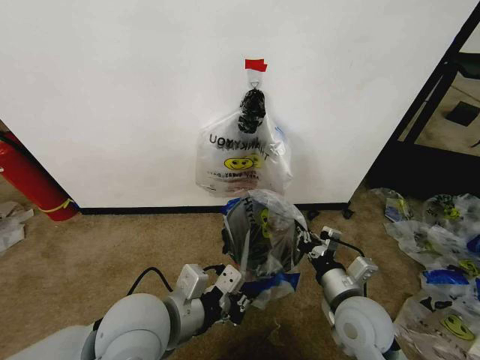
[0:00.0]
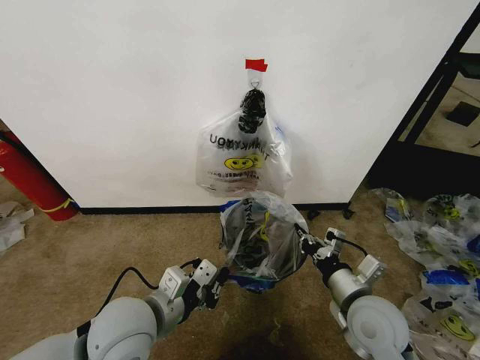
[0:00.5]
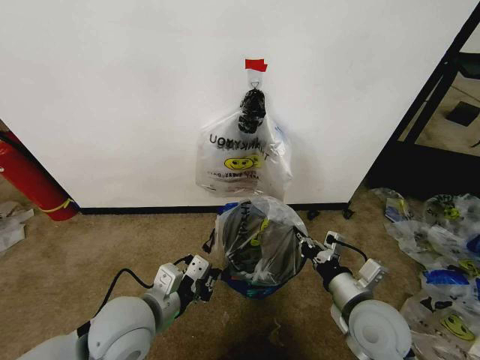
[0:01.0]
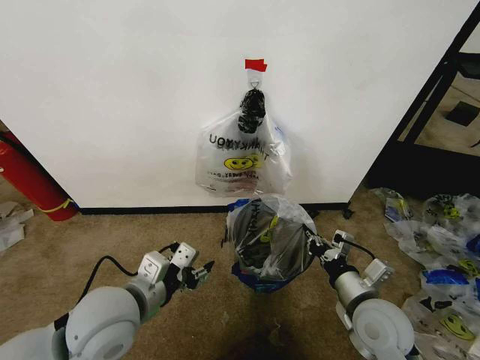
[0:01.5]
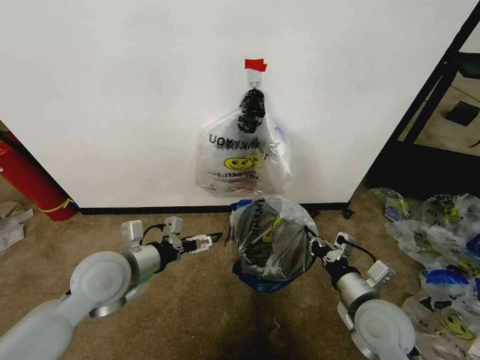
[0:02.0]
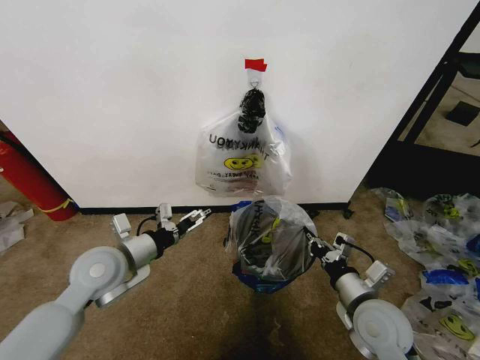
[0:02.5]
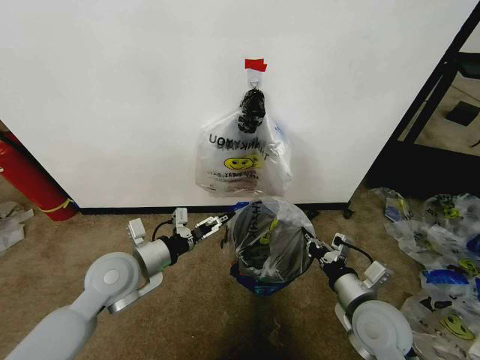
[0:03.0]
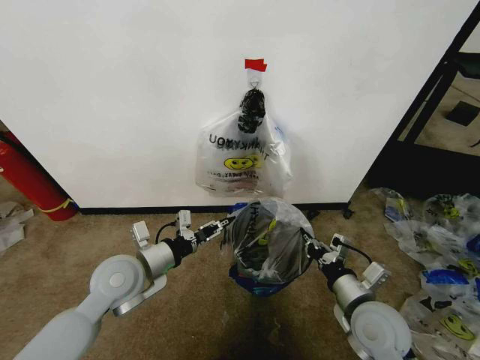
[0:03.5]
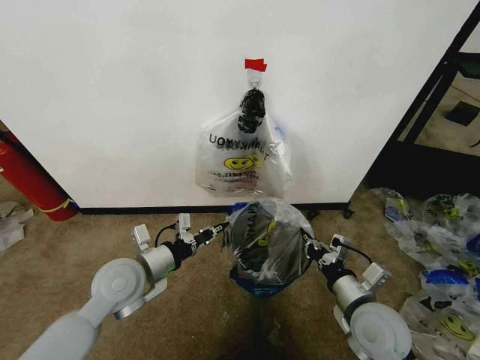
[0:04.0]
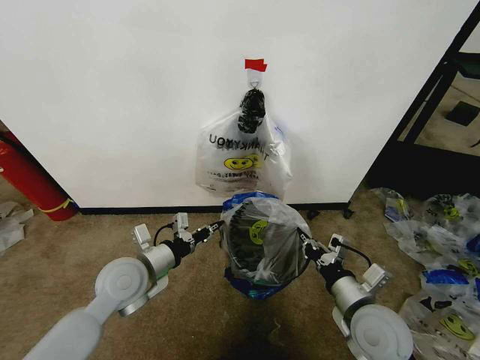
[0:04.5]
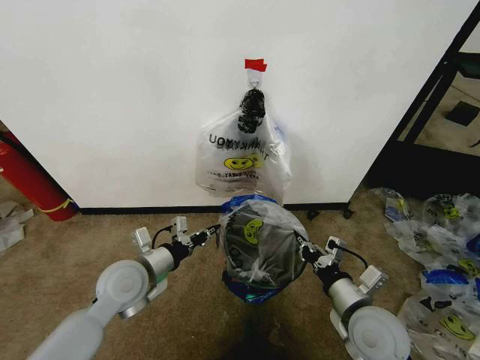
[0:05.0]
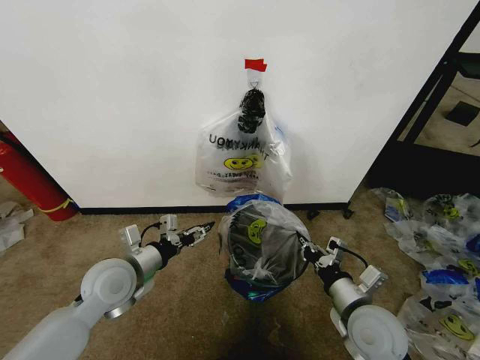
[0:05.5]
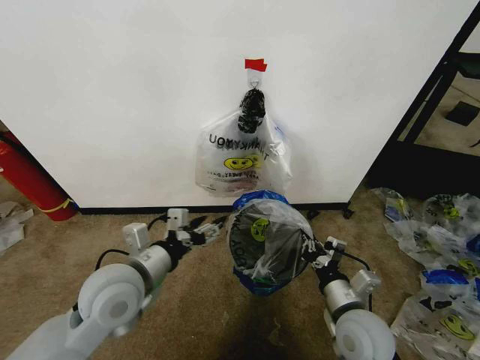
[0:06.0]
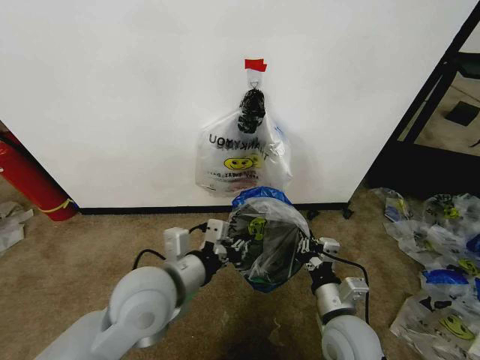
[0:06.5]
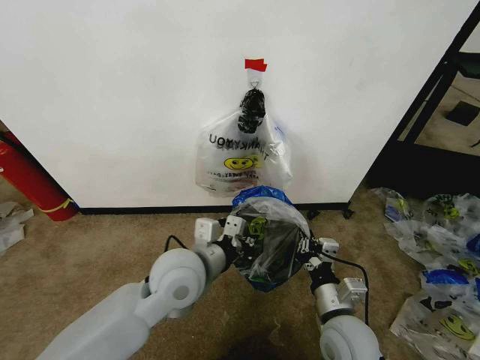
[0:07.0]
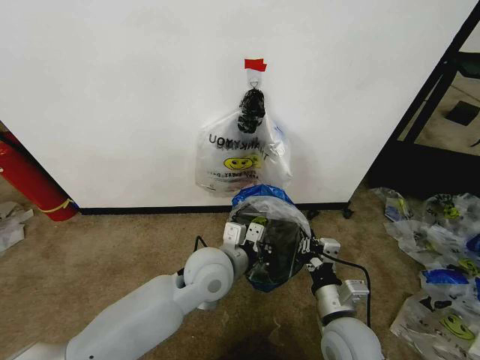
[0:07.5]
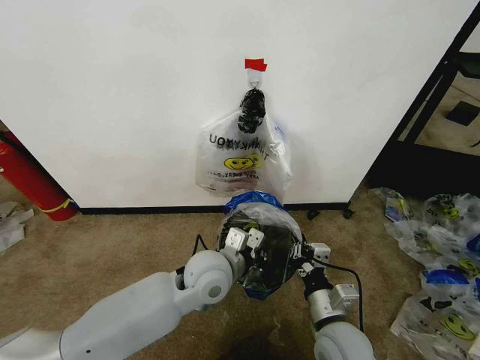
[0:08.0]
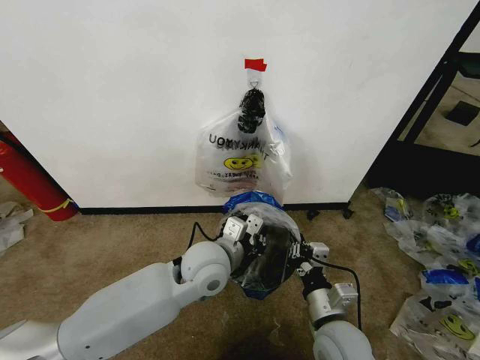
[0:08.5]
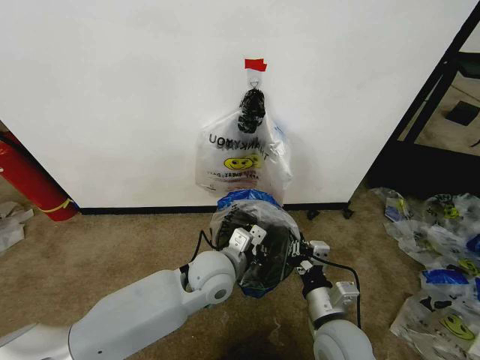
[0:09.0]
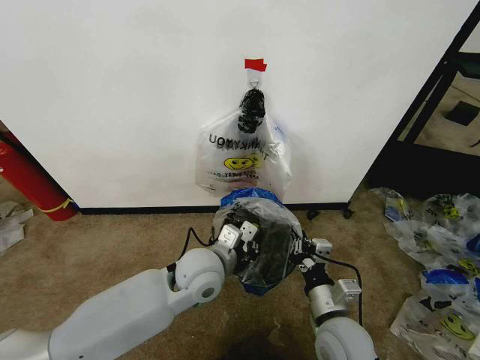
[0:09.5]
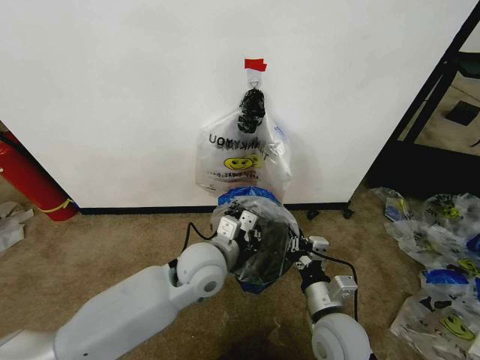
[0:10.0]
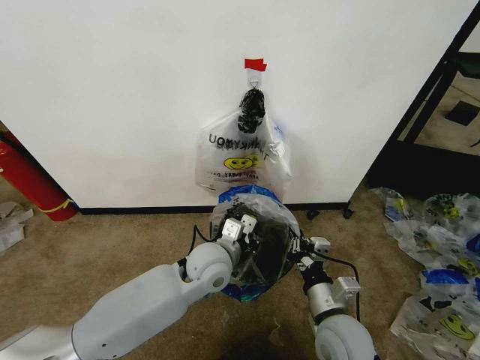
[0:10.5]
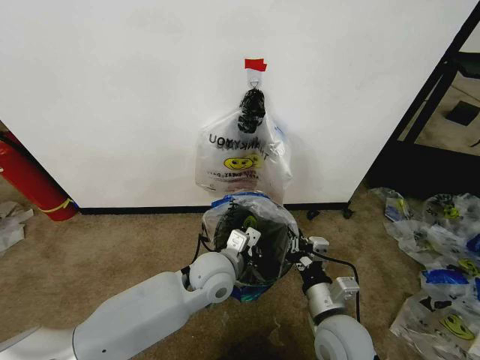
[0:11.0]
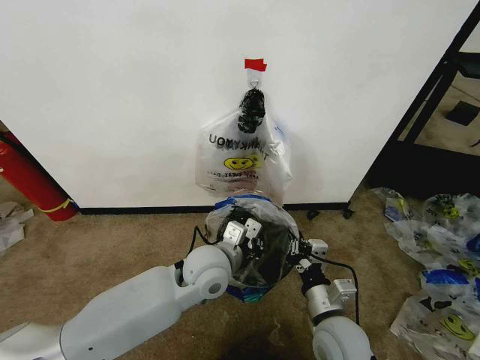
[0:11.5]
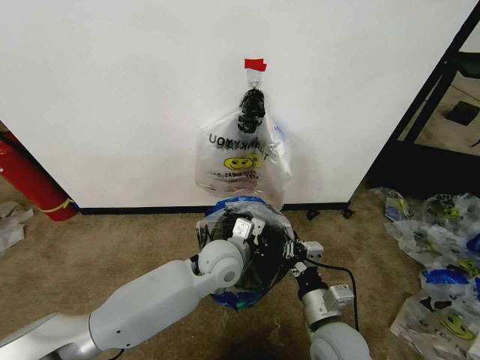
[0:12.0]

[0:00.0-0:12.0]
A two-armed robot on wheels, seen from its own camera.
Task of the whole recording: Pick up the garbage bag from the wall and place it over the trash bin.
0:00.0 to 0:02.0: The left gripper moves to the left and forward, some 15 cm, and opens up.
0:02.0 to 0:04.0: The left gripper closes.
0:04.0 to 0:06.0: The left gripper ends up some 5 cm from where it was, and opens its fingers.
0:06.0 to 0:08.0: The left gripper shifts approximately 15 cm to the right, and closes up.
0:08.0 to 0:10.0: The grippers make only small movements.
0:10.0 to 0:12.0: The left gripper moves about 5 cm.

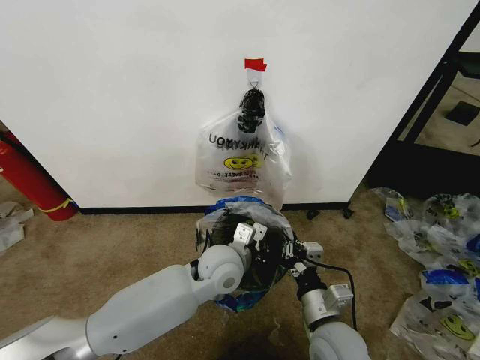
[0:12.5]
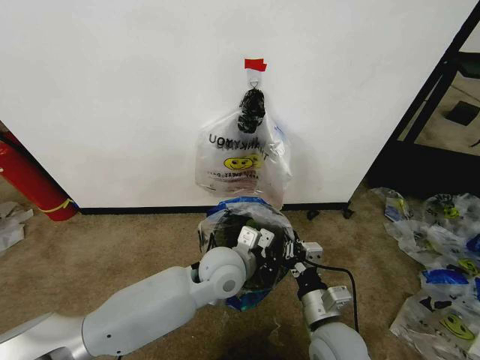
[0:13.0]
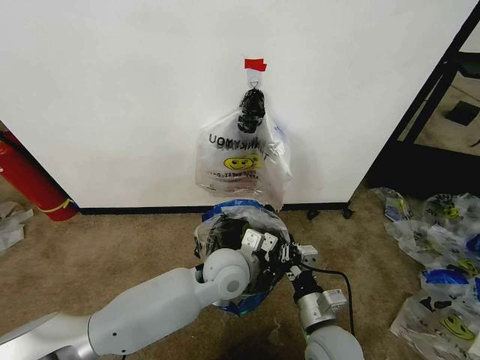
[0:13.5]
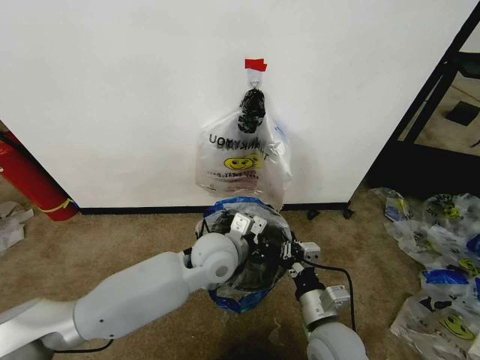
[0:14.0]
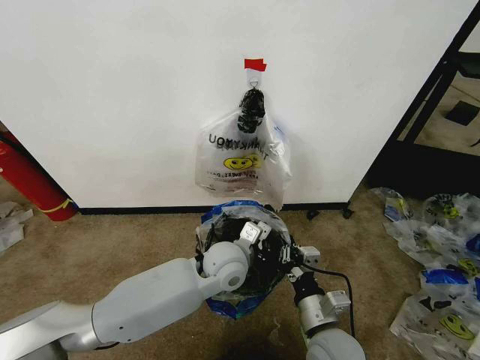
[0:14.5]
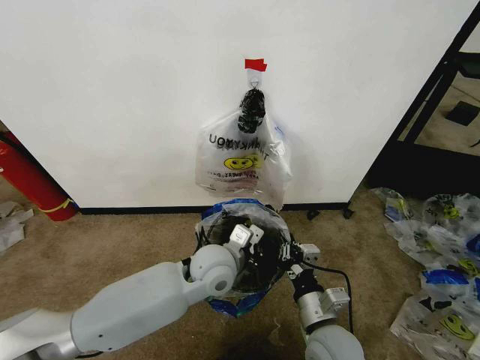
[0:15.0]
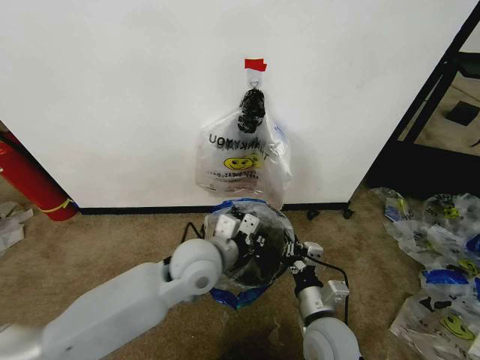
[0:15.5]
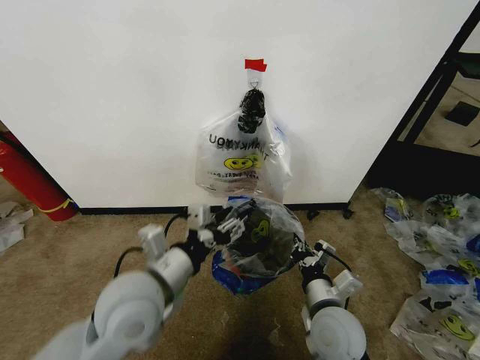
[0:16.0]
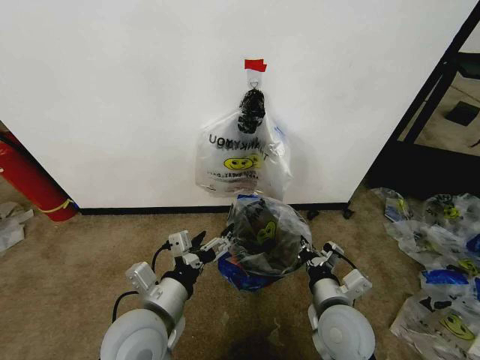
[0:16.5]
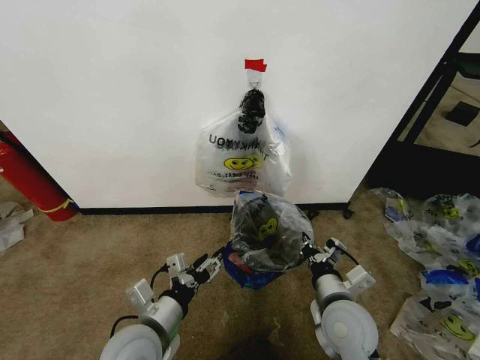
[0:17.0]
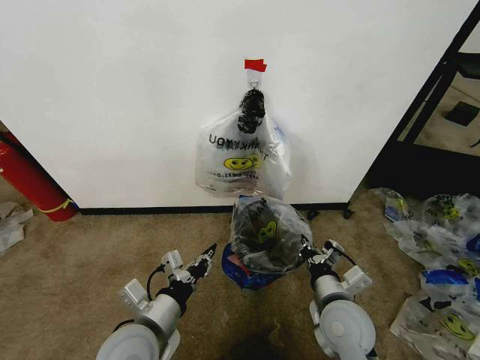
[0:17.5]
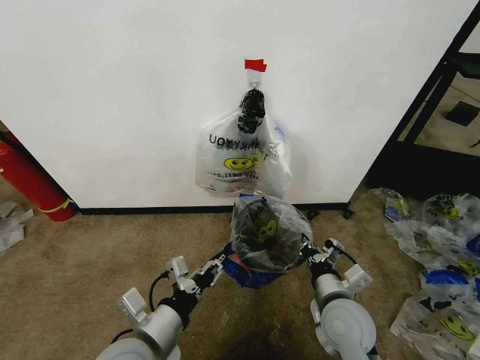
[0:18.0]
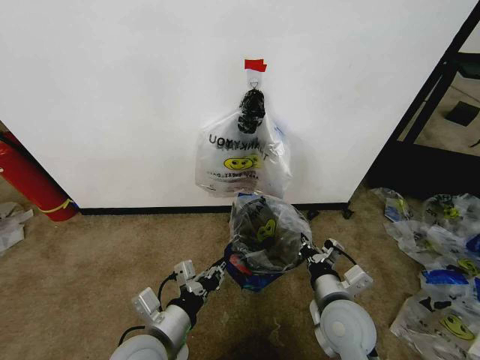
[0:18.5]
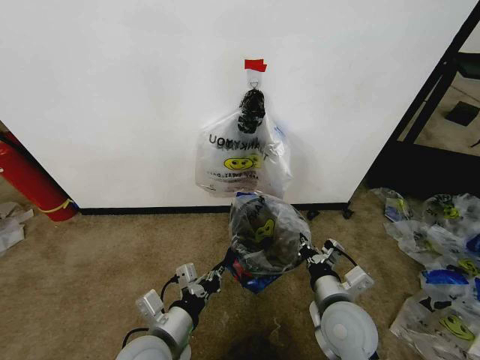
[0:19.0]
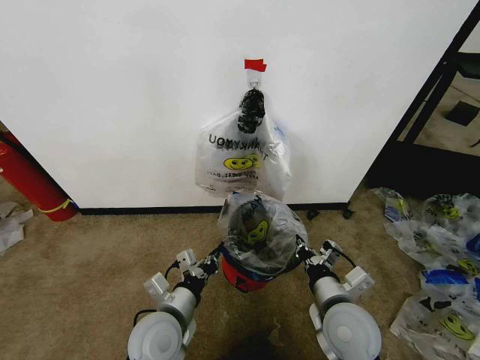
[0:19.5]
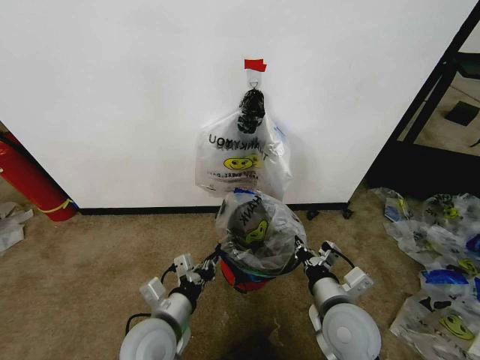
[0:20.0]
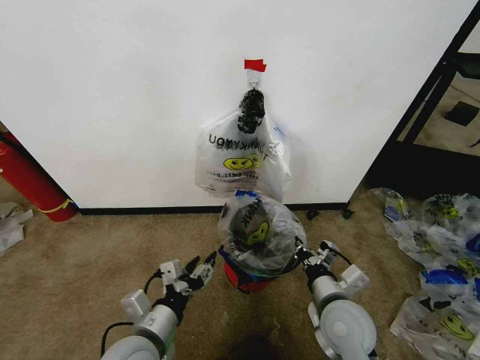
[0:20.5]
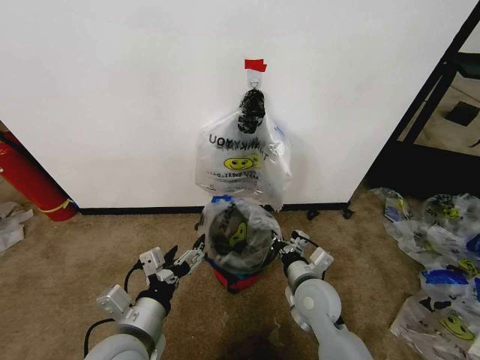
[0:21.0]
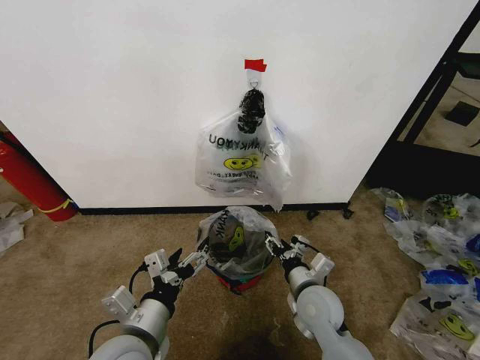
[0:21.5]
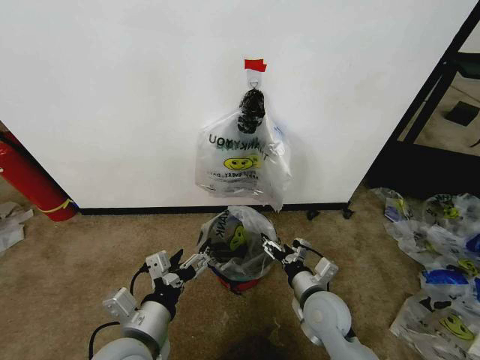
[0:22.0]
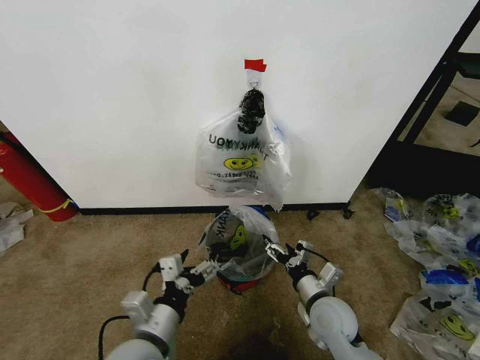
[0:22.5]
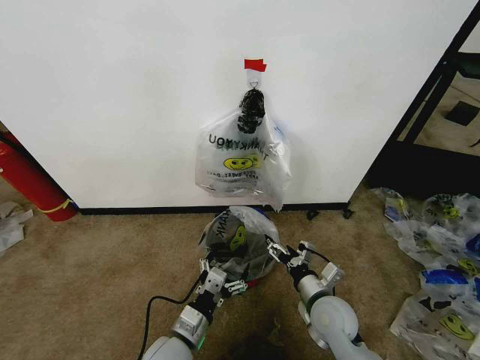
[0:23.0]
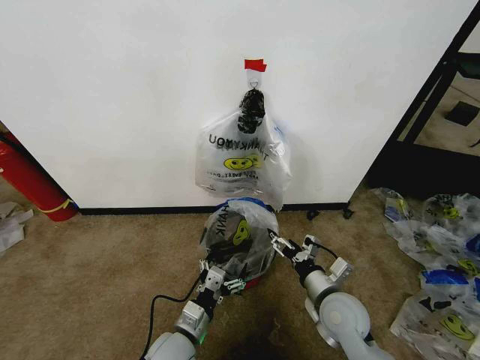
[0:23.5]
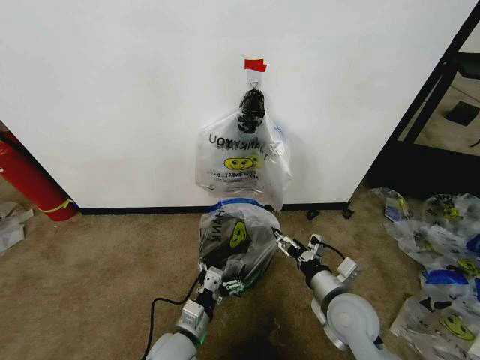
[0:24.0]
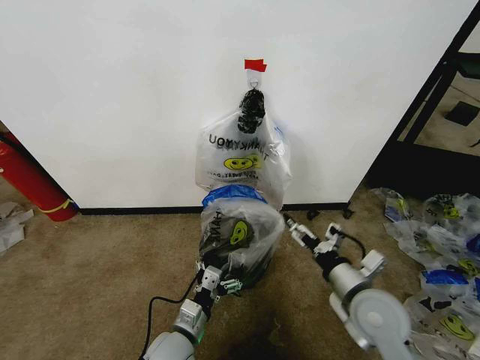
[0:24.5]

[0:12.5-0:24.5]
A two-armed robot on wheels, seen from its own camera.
Task of the whole recording: Pick up the garbage bag from the wall and place it over the trash bin.
0:12.5 to 0:14.5: The grippers make only small movements.
0:14.5 to 0:16.5: The left gripper is displaced backward and to the left by roughly 20 cm, and opens its fingers.
0:16.5 to 0:18.5: The left gripper closes up.
0:18.5 to 0:20.5: The left gripper opens its fingers.
0:20.5 to 0:22.5: The left gripper opens. The right gripper moves downward, some 5 cm, and opens its fingers.
0:22.5 to 0:24.5: The right gripper moves upward and to the right, approximately 10 cm. Meanwhile the left gripper travels downward by roughly 10 cm.

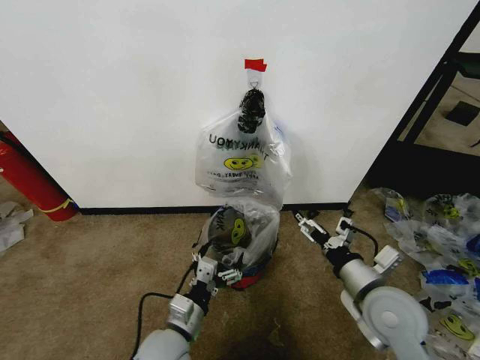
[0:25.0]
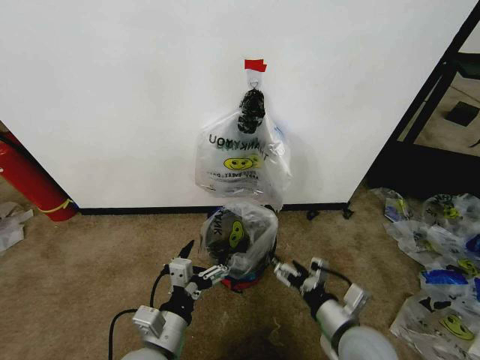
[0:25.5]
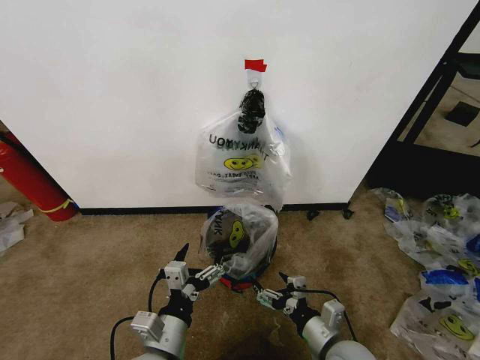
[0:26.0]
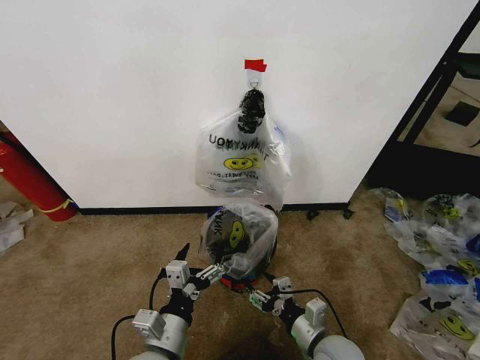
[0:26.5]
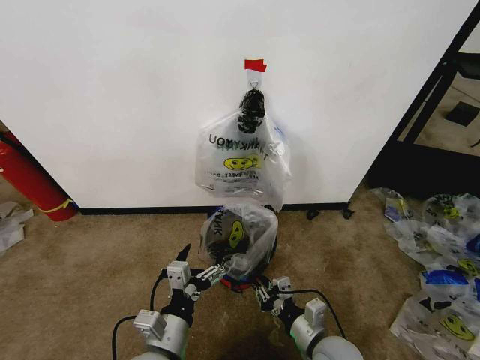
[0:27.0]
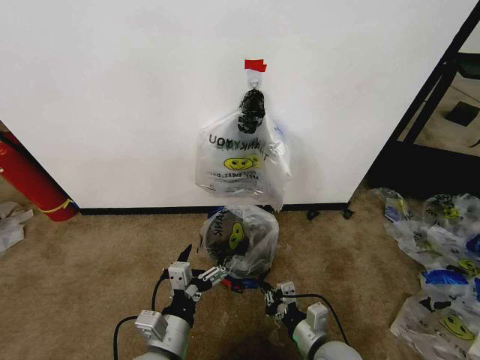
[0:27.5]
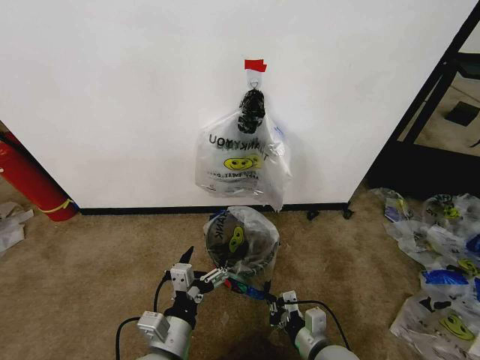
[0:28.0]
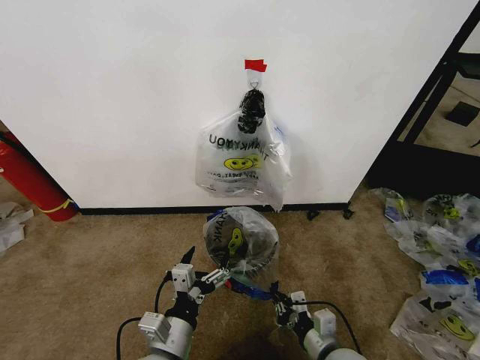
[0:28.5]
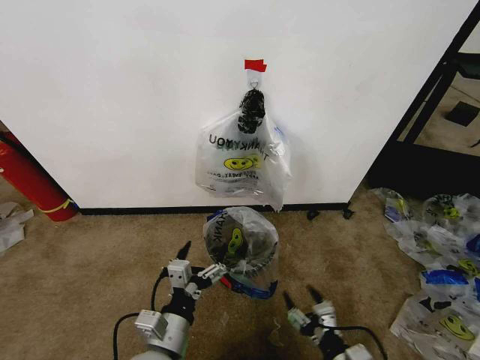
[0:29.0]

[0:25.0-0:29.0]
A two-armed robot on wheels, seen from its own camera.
Task of the whole recording: Pick up the garbage bag from the wall and place it over the trash bin.
0:25.0 to 0:27.0: The left gripper shifts by some 5 cm; the right gripper is displaced downward, to the left and backward by some 15 cm, and closes up.
0:27.0 to 0:29.0: The right gripper is displaced backward and to the right by approximately 10 cm, and opens up.
